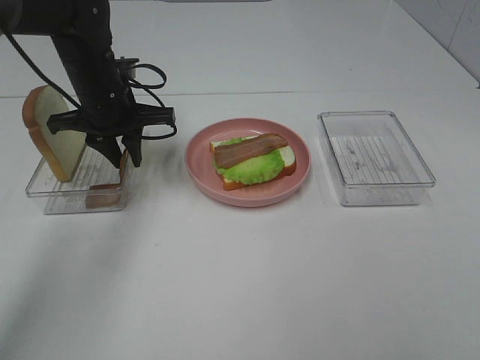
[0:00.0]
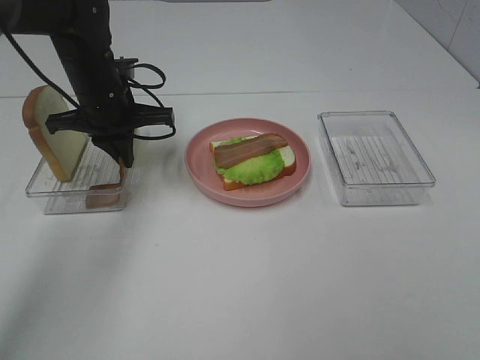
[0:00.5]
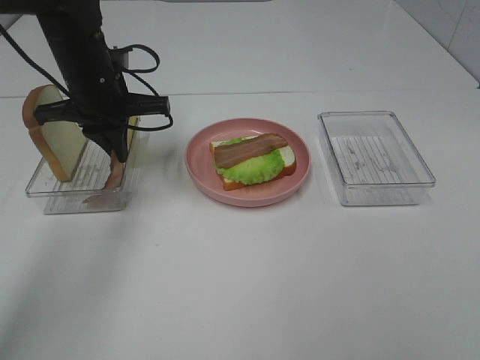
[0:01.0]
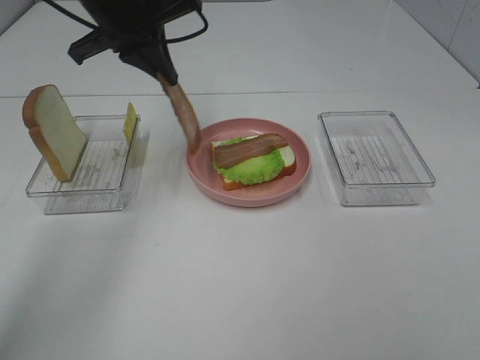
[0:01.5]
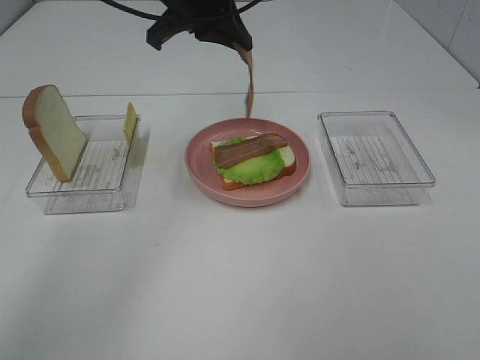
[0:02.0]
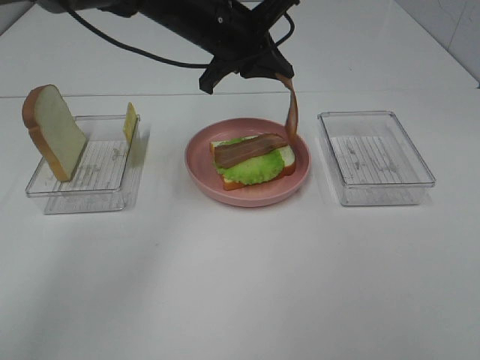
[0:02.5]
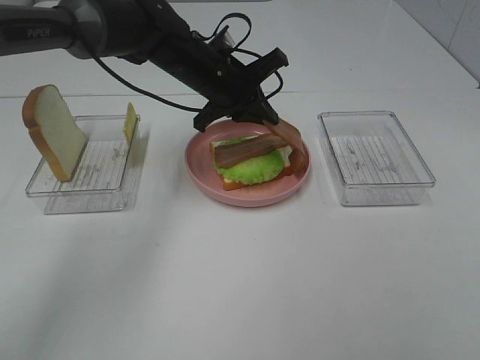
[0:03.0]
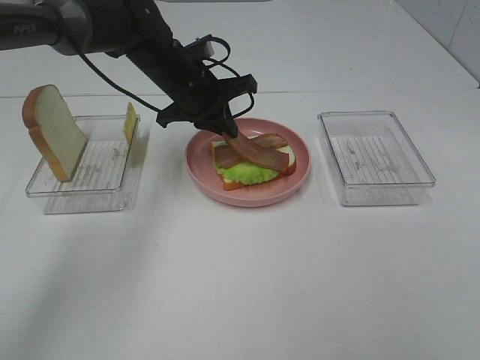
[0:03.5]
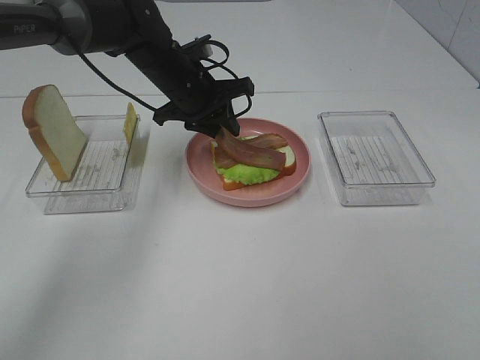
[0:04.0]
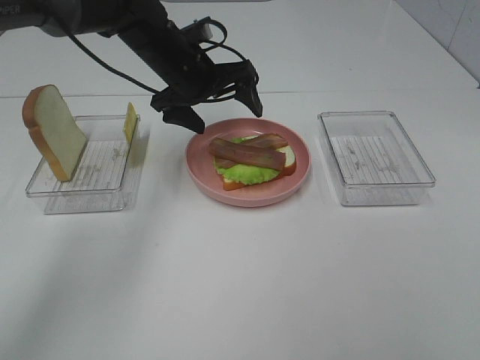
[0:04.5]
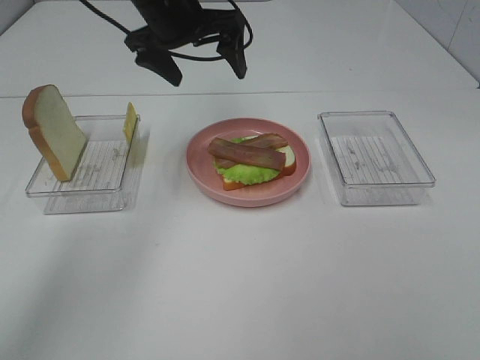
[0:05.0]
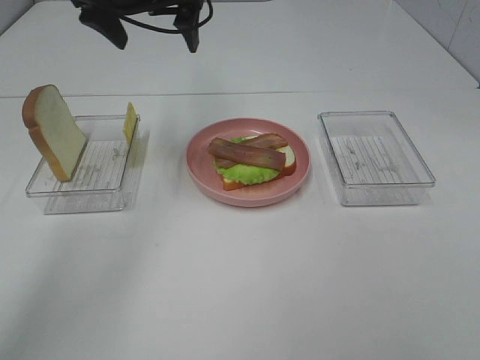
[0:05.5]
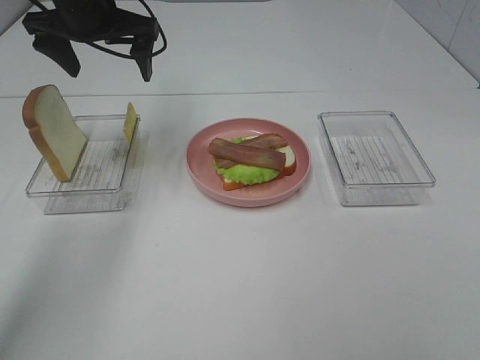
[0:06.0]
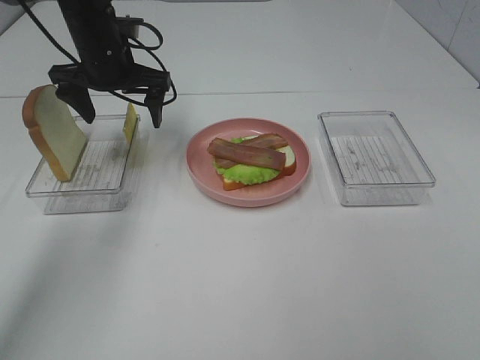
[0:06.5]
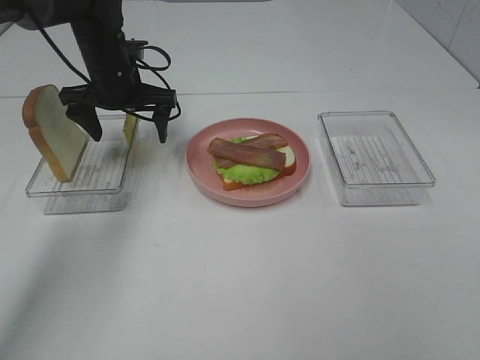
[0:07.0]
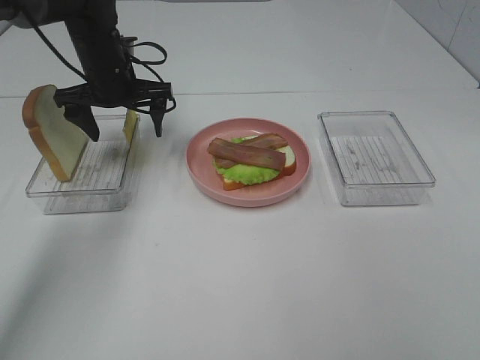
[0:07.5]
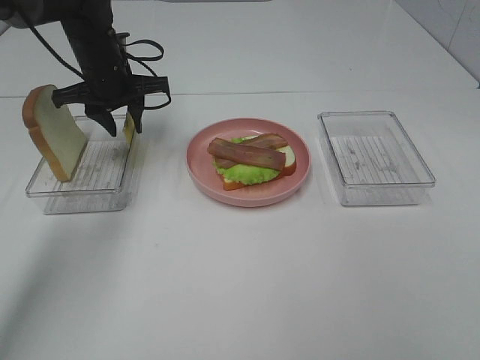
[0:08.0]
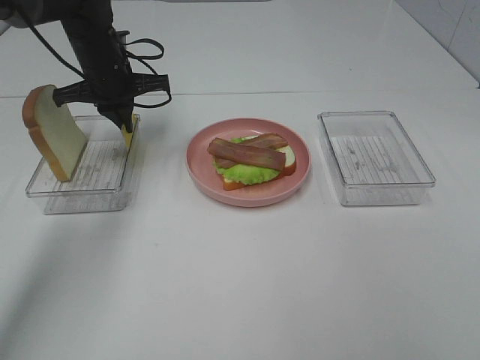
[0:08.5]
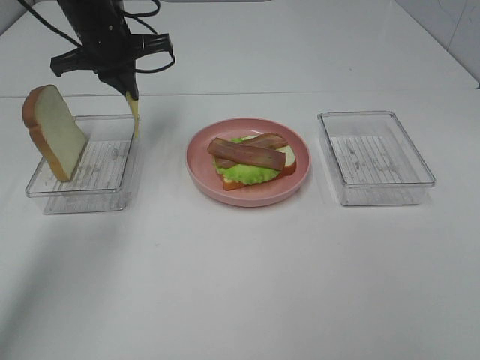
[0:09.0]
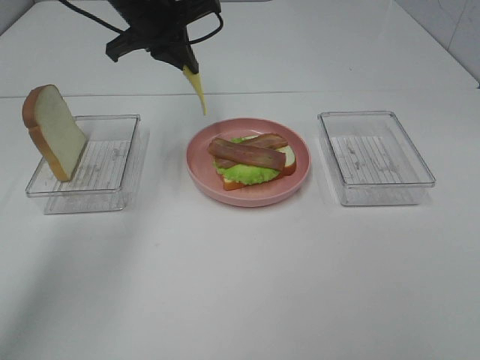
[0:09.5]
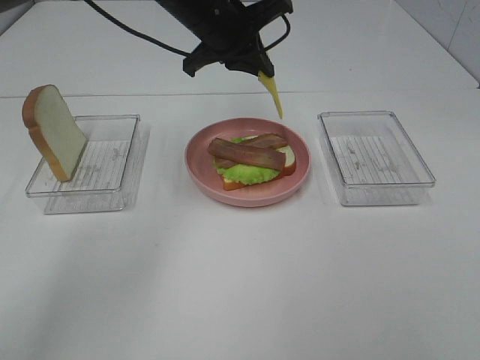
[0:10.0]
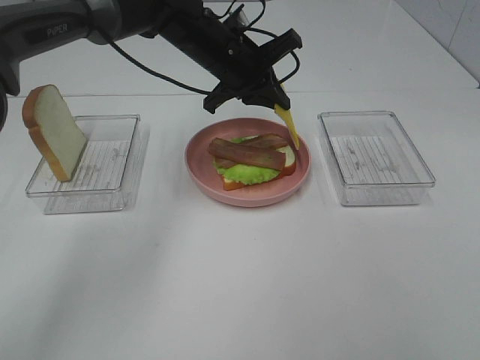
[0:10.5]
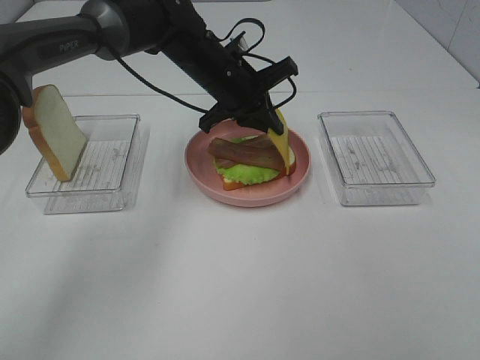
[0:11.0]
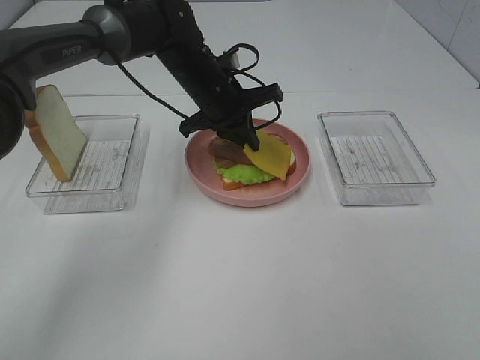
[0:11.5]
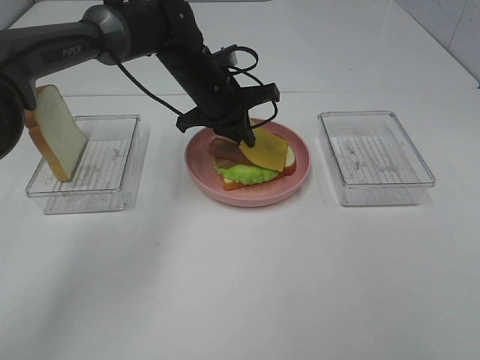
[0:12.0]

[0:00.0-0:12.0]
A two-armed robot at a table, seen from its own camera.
Task of the whole recording: Make sandwiches.
Step, 0:01.0 to 0:04.5: Left hand:place bacon on bacon.
Step, 0:05.0 to 0:08.0: Left hand:grab the cheese slice.
0:00.0 to 0:02.0: The left gripper shifts some 15 cm upward and to the right.
0:02.0 to 0:04.0: The left gripper moves downward, roughly 15 cm, and opens.
0:04.0 to 0:06.0: The left gripper moves upward and to the left, roughly 15 cm, and opens.
0:06.0 to 0:08.0: The left gripper is displaced downward by roughly 10 cm, and closes.
0:08.0 to 0:10.0: The left gripper travels to the right and upward by roughly 15 cm, and closes its fingers.
0:10.0 to 0:12.0: The left gripper is displaced downward by some 10 cm.

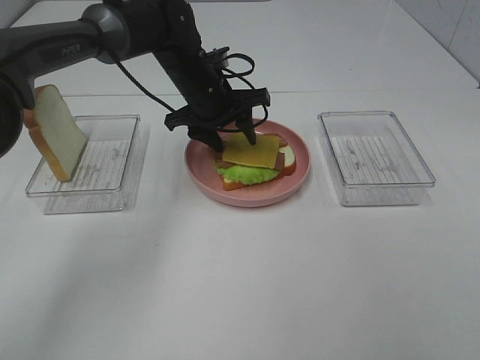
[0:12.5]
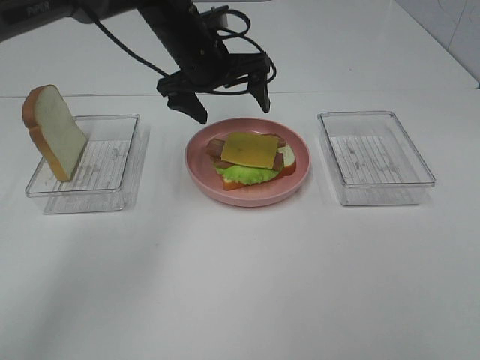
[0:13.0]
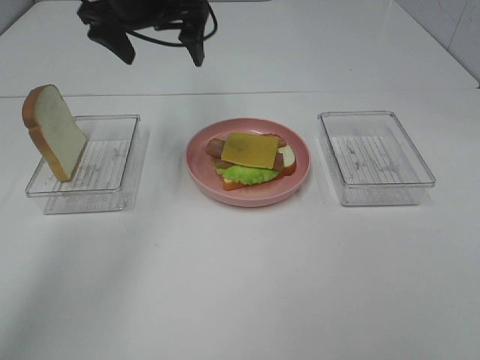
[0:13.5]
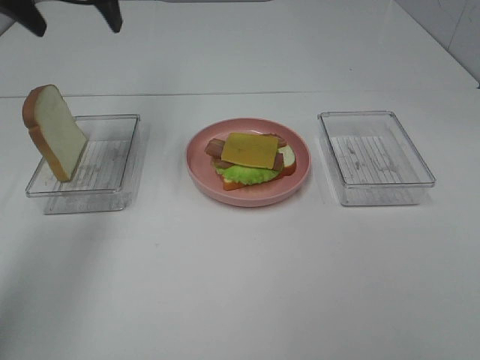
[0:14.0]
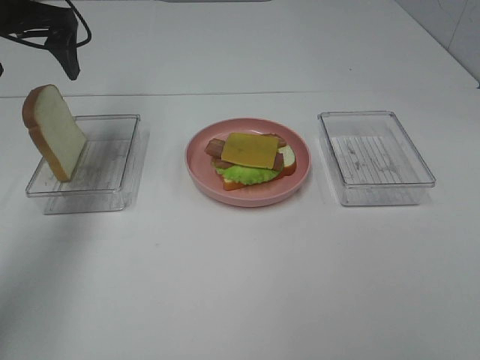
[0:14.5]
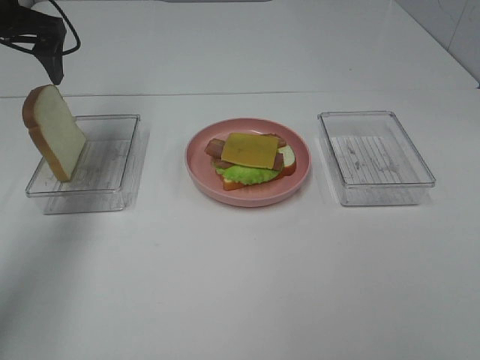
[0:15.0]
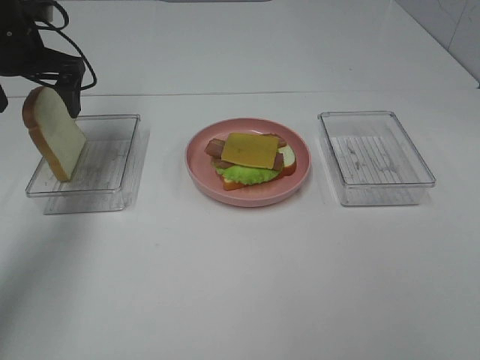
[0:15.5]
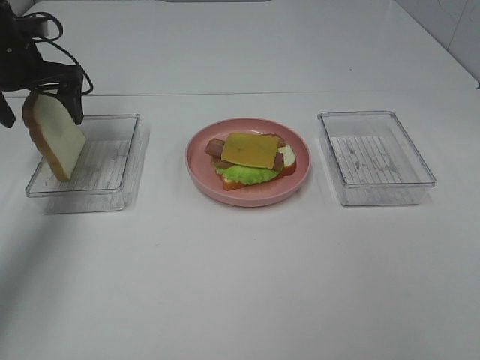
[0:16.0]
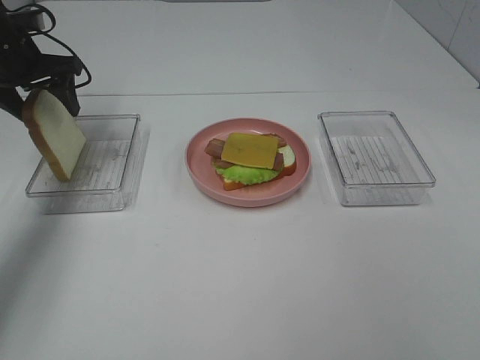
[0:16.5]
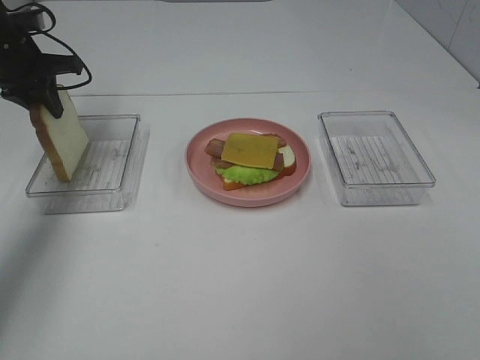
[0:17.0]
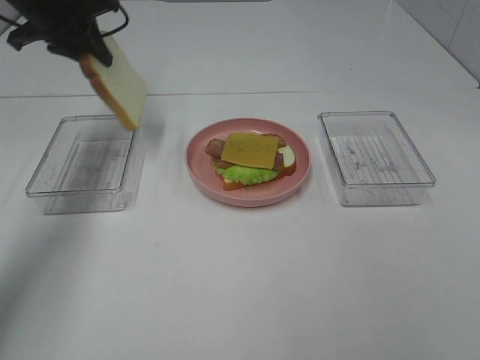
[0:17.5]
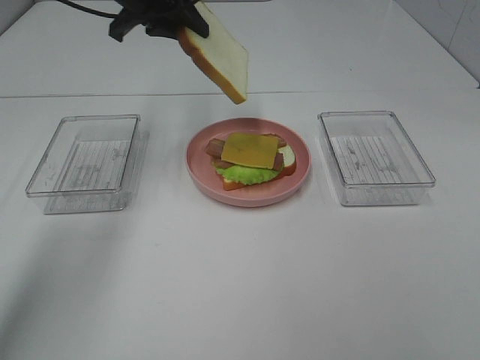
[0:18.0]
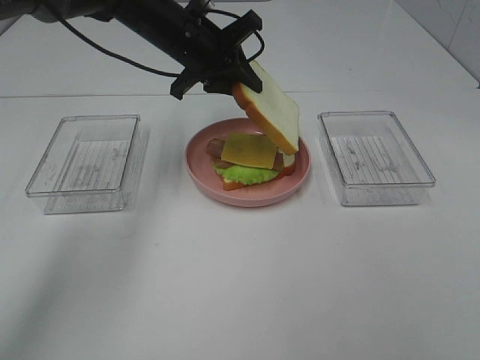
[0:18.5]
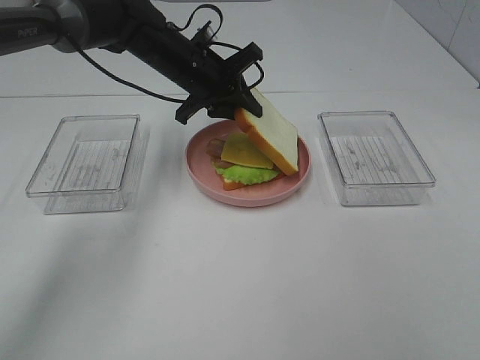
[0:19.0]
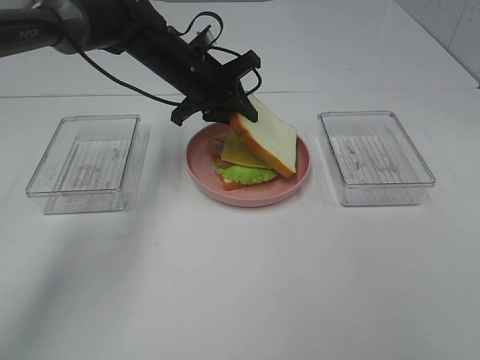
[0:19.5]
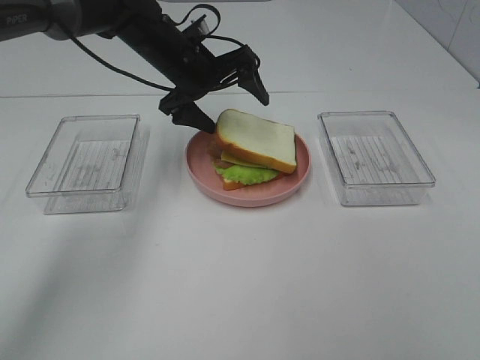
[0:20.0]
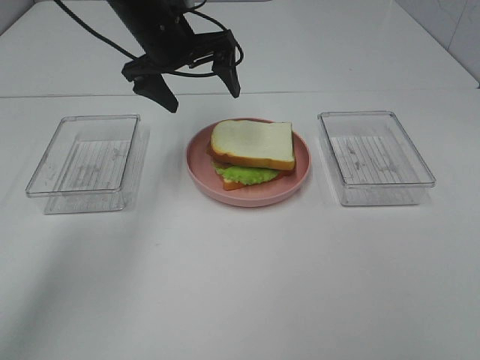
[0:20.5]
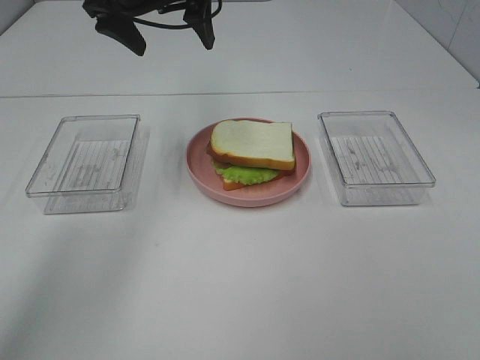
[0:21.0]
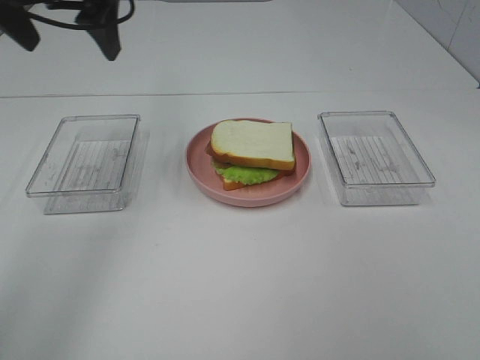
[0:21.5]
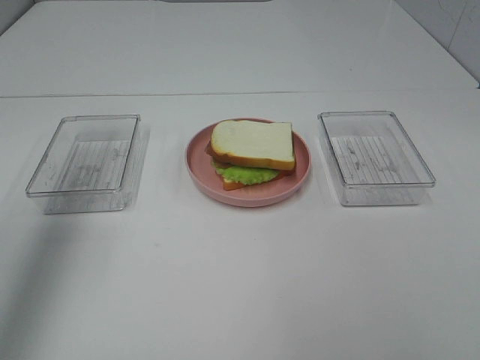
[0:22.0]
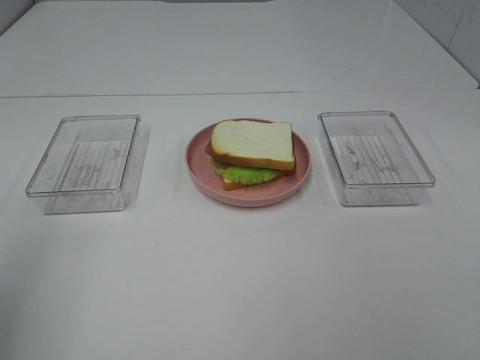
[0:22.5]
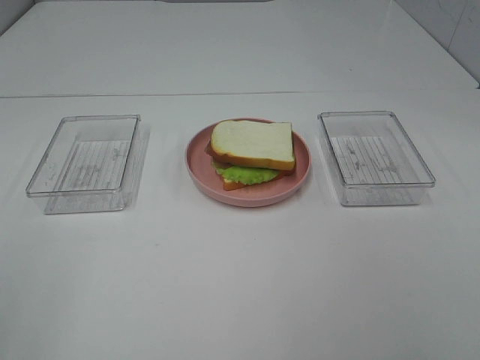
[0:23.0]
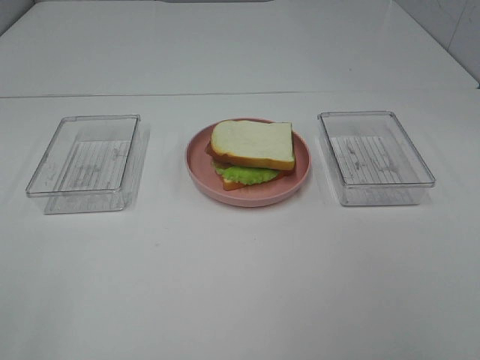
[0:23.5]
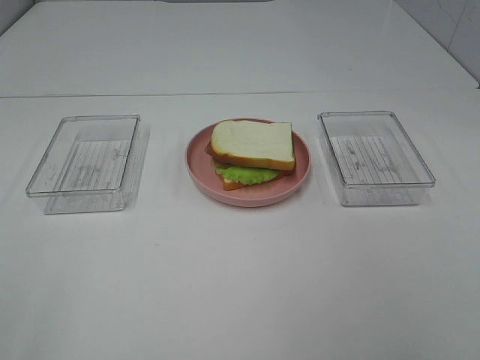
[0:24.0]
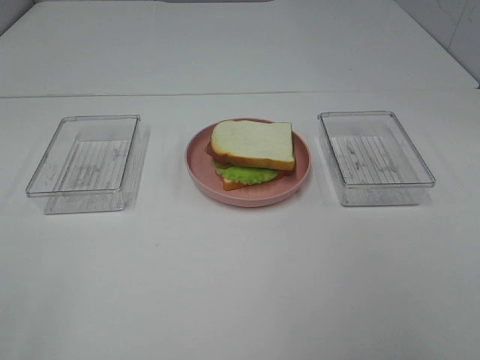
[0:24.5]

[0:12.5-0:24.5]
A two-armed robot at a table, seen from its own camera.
Task of the whole recording: Make sandwiches.
Step, 0:13.0 to 0:17.0: Left hand:grab the bread slice.
Step, 0:17.5 to 0:20.0: Left hand:place the bread slice on the plate.
0:12.5 to 0:14.5: The left gripper travels to the left and upward by about 25 cm.
0:14.5 to 0:16.5: The left gripper moves downward, approximately 10 cm.
0:16.5 to 0:18.5: The left gripper shifts about 25 cm to the right, and closes up.
0:18.5 to 0:20.5: The left gripper opens up.
0:20.5 to 0:22.5: The left gripper is displaced backward and to the left by approximately 40 cm.
0:22.5 to 0:24.5: The left gripper shifts approximately 15 cm backward and downward.

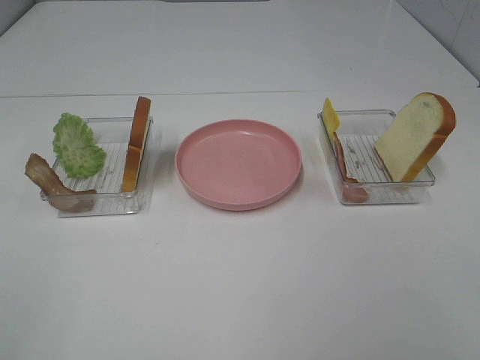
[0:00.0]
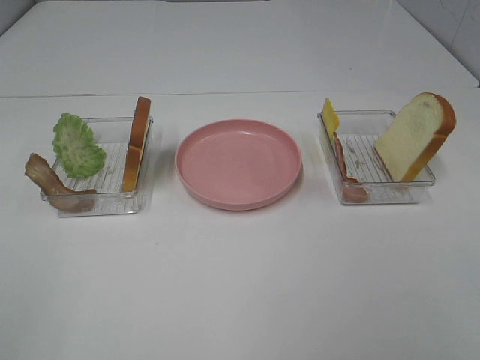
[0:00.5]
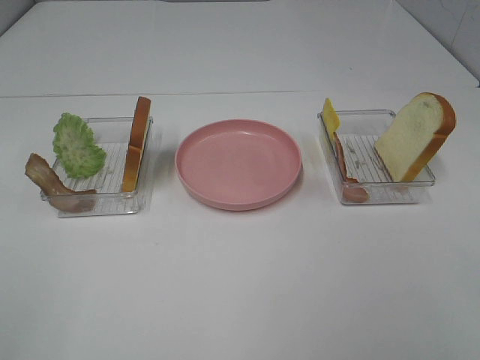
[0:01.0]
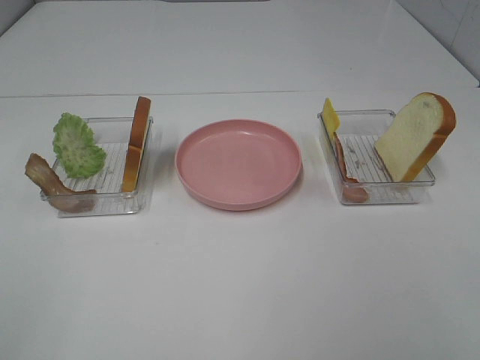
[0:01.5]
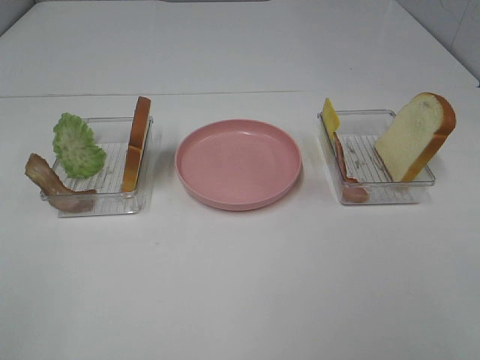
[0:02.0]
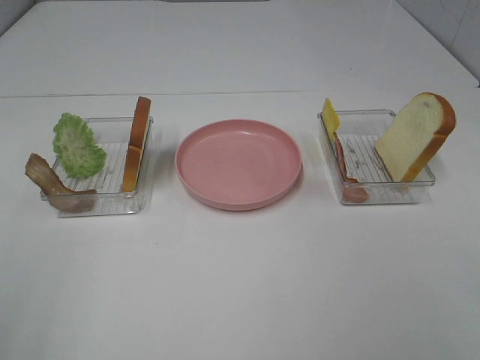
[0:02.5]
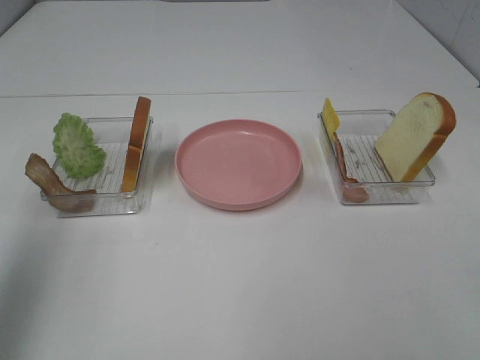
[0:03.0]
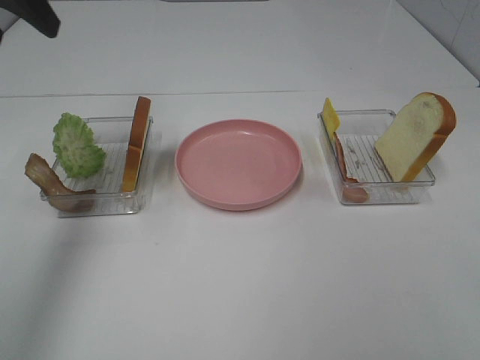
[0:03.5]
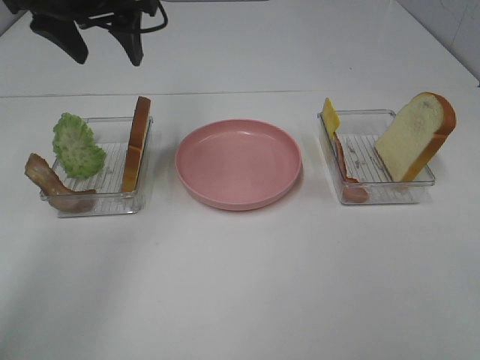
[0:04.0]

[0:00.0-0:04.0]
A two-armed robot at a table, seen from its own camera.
Task of the whole recording: Make sandwiches.
0:00.0 to 0:02.0: Both grippers stay about where they are.
0:02.0 to 0:04.0: The left gripper shifts approximately 40 cm forward.
